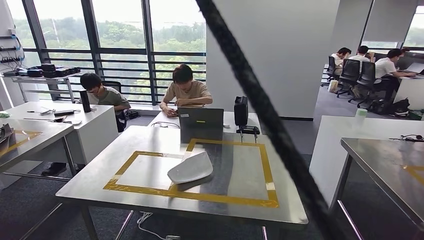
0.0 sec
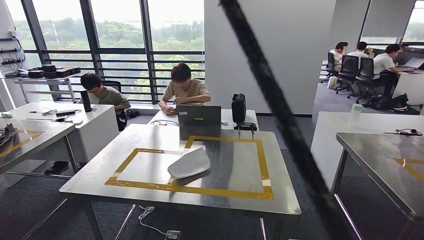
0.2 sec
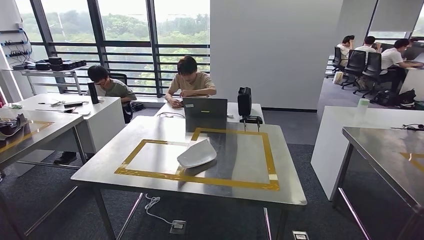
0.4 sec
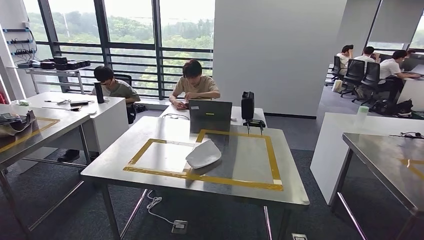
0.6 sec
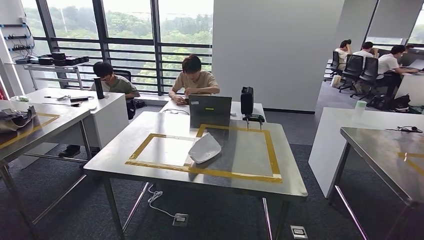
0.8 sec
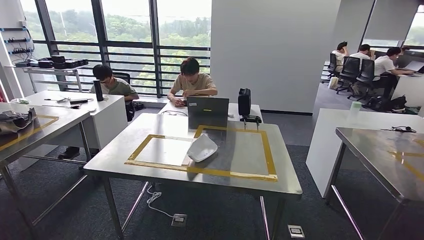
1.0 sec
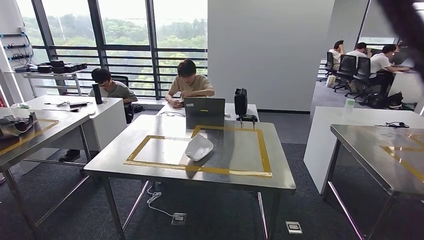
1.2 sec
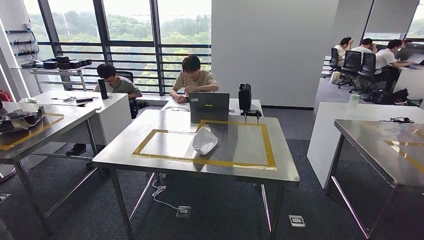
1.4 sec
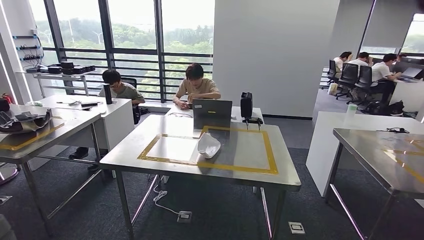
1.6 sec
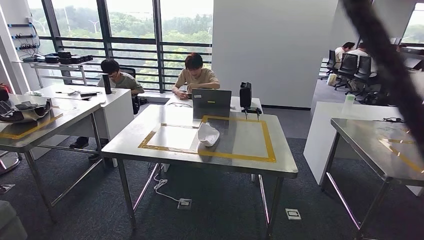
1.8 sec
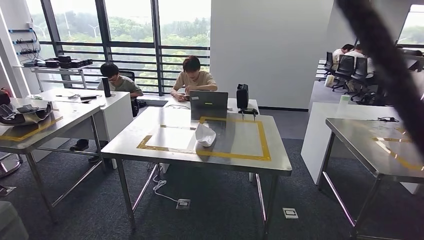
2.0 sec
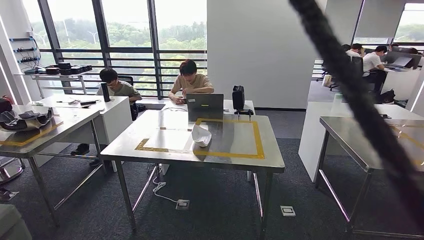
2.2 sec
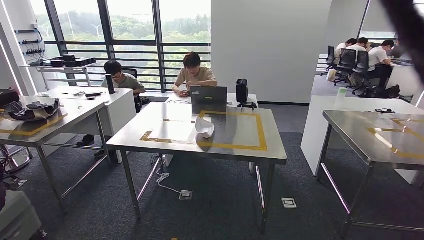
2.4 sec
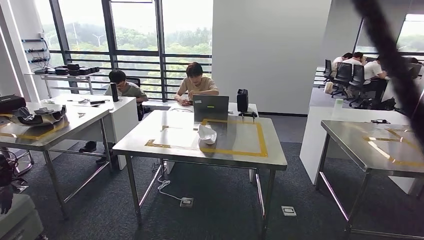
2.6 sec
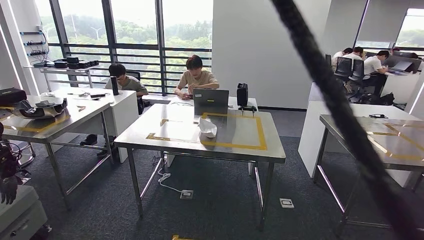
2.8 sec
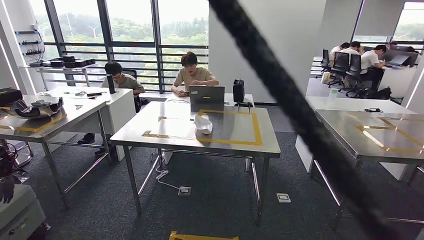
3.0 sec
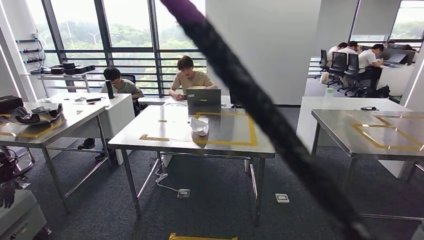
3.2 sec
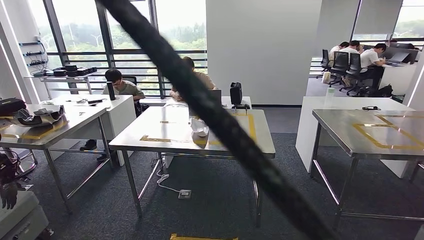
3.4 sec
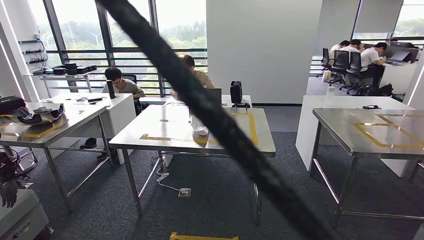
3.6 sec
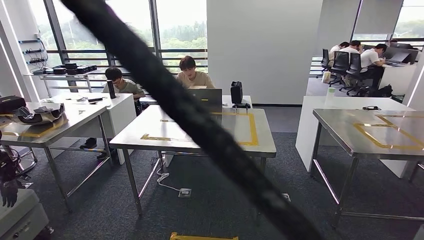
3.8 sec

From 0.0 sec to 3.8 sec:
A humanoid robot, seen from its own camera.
Step, from 0.0 sec to 3.8 sec: Return to the initial position at the workbench.
